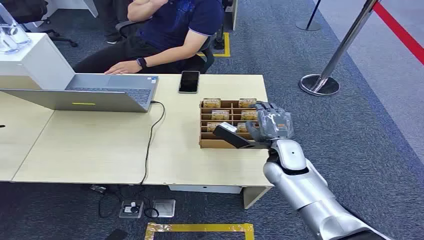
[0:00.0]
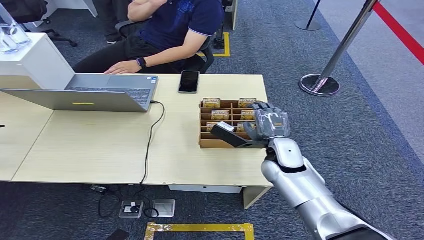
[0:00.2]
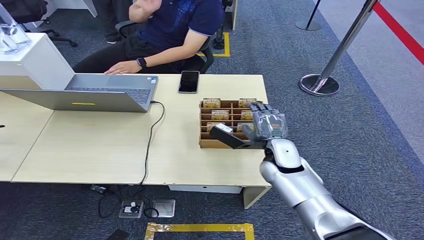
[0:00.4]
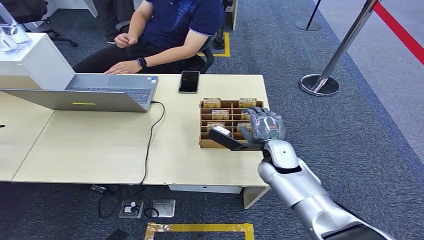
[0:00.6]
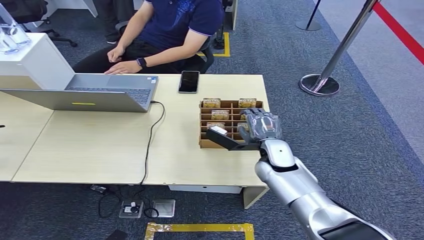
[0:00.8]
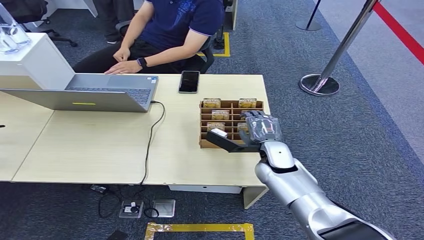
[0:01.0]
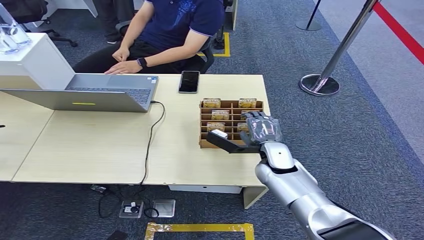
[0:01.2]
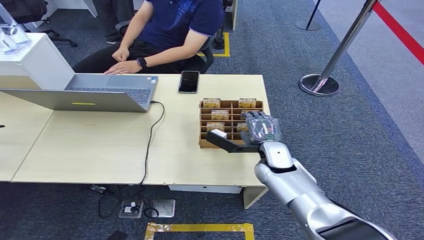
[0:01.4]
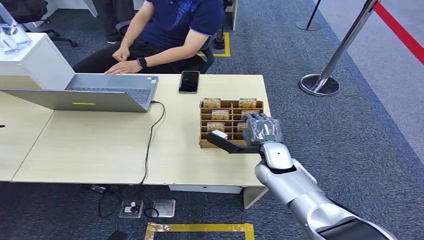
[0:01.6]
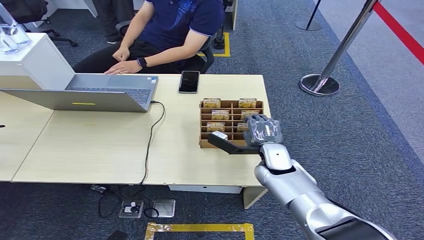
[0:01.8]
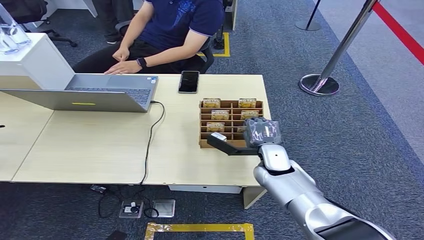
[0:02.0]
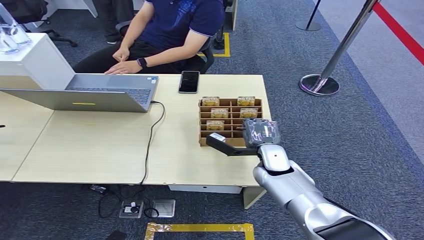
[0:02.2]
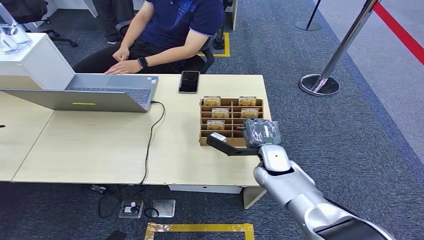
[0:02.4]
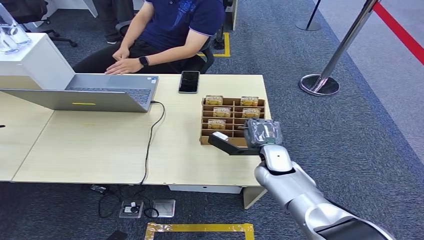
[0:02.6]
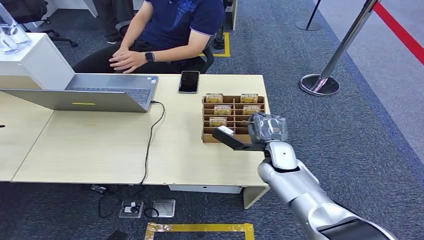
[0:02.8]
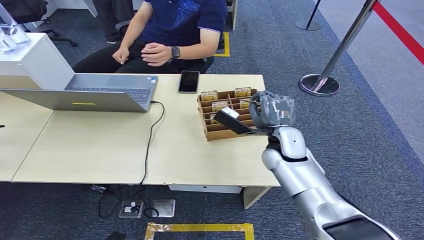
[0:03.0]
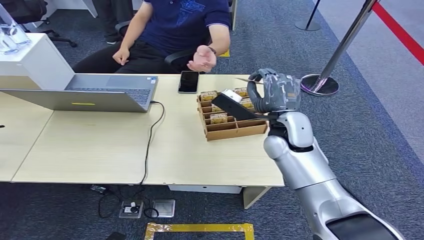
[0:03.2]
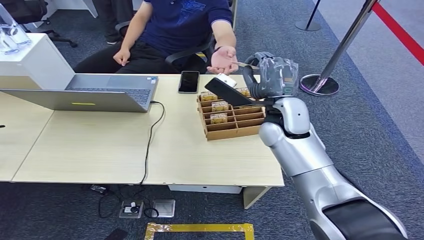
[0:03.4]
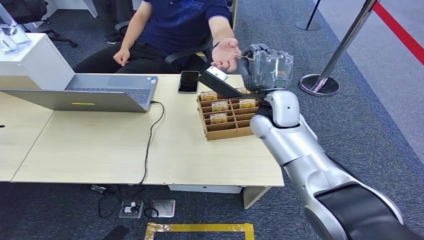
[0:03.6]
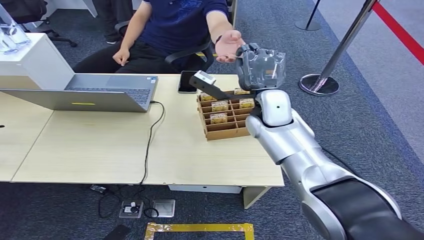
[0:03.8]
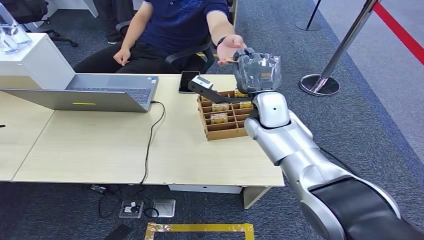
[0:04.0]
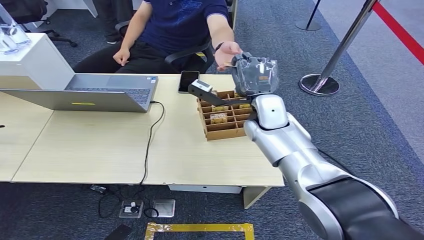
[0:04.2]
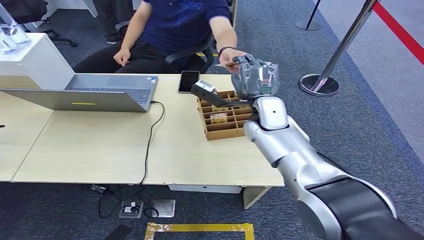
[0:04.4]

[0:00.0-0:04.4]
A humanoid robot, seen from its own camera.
Step, 0:00.0 to 0:03.4: Pick up the key card from the card box.
Step, 0:03.6 to 0:04.4: Hand the key card to the target.
0:01.4 to 0:03.0: The right hand goes roughly 5 cm upward.
0:03.0 to 0:04.4: The right hand shifts approximately 10 cm upward and forward.

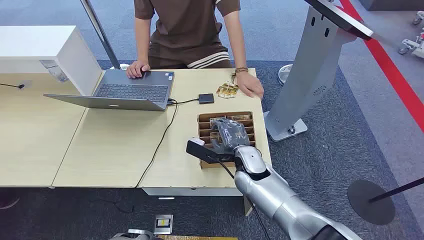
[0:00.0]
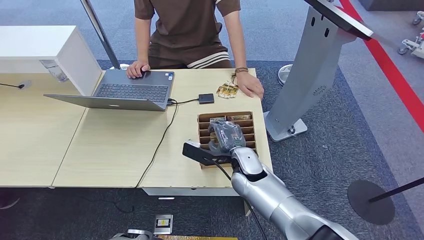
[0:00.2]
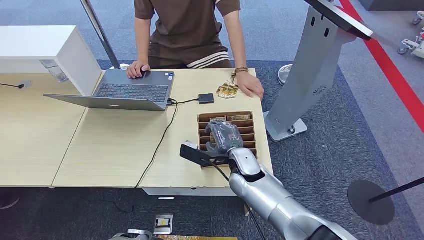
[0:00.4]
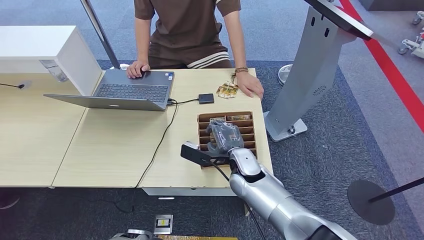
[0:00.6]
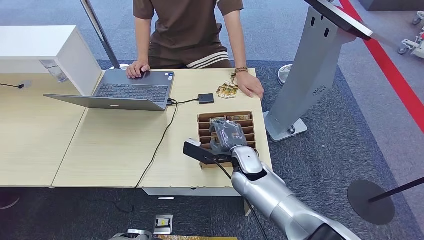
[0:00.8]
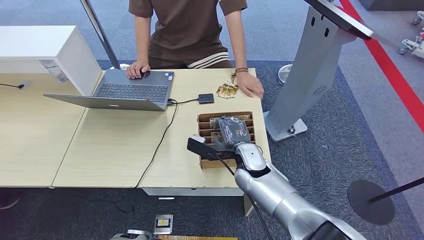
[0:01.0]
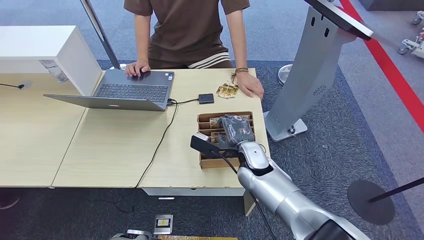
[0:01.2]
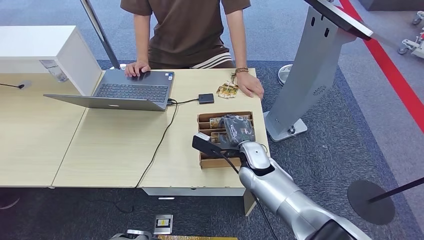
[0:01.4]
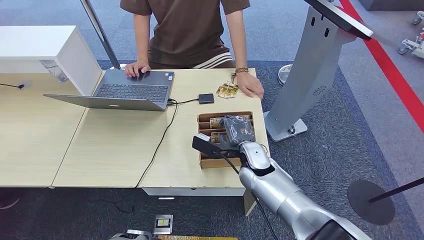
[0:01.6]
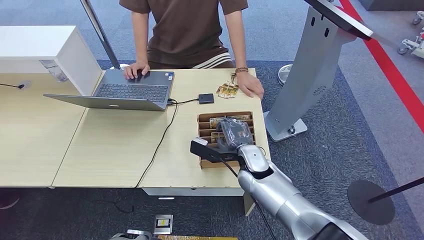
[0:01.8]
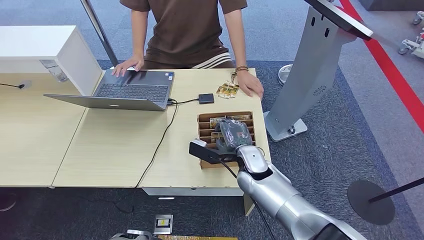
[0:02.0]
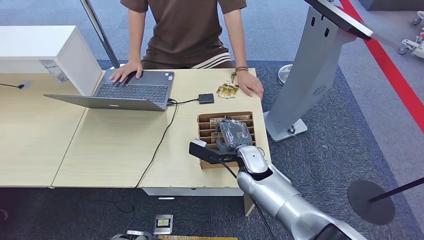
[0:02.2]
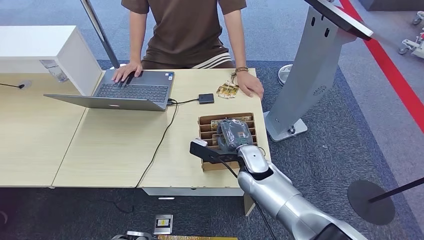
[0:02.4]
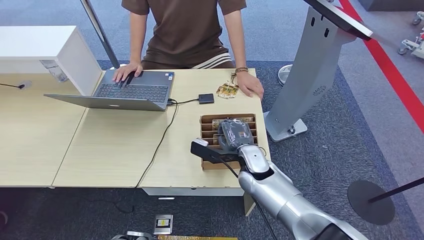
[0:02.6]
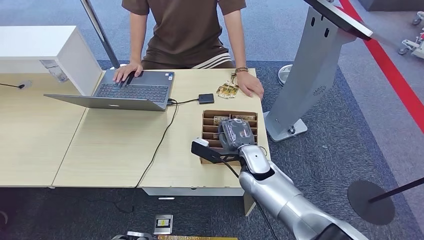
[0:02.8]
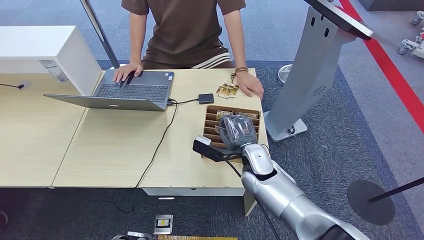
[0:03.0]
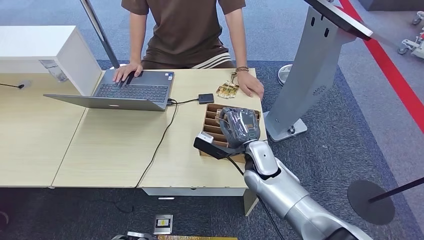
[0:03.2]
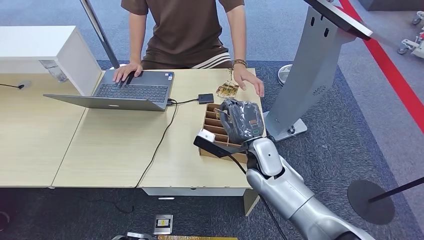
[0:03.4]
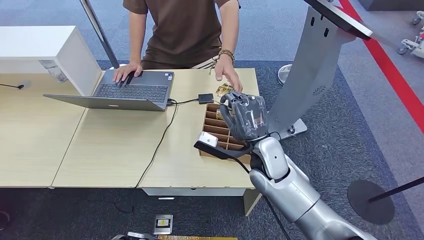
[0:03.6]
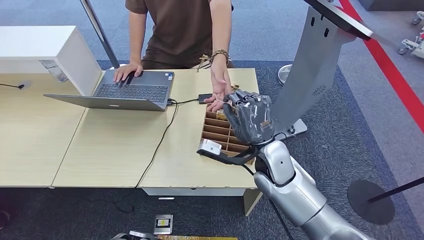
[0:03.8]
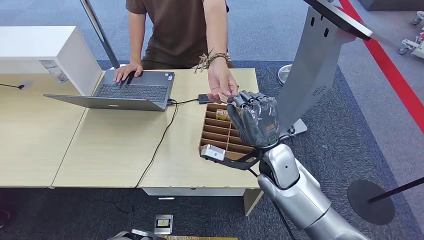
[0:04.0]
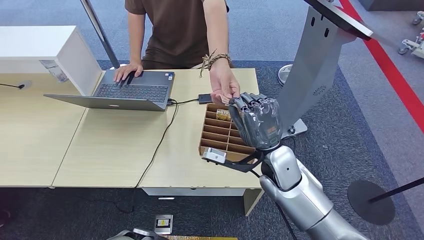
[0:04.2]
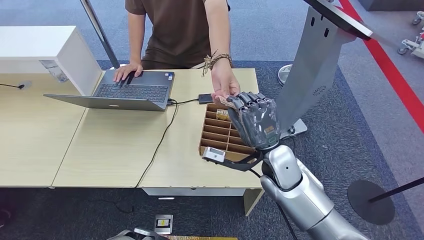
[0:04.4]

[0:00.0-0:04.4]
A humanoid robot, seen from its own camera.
Step, 0:00.0 to 0:02.8: Pick up the key card from the card box.
Step, 0:03.2 to 0:04.4: Hand the key card to the target.
0:01.4 to 0:03.0: There are only small adjustments of the hands.
0:03.0 to 0:04.4: The right hand moves upward, approximately 5 cm.
